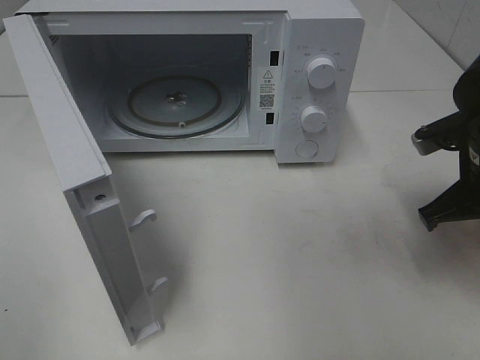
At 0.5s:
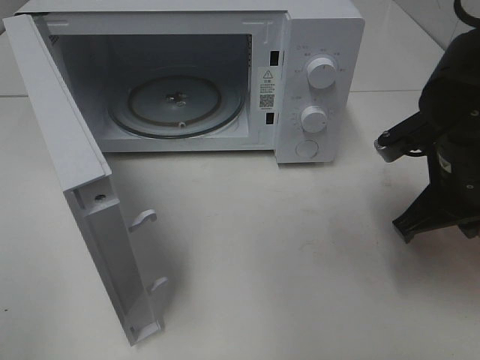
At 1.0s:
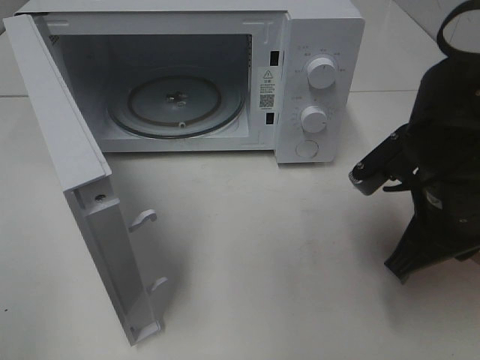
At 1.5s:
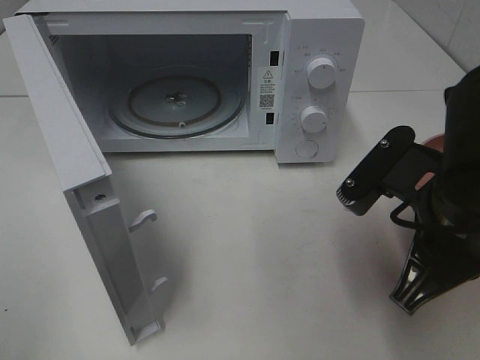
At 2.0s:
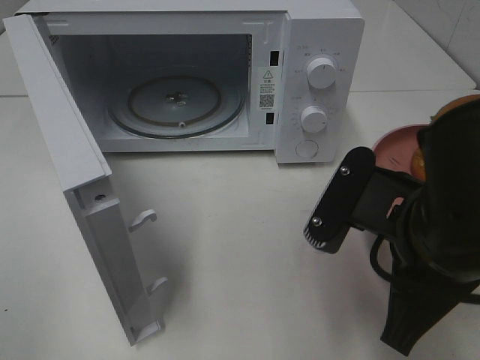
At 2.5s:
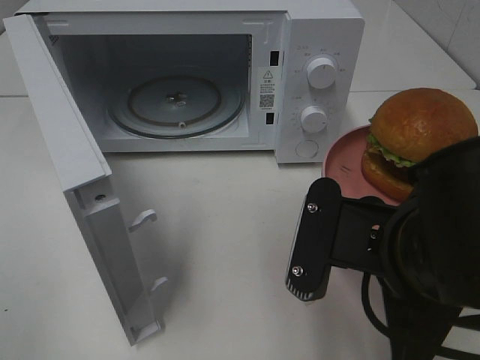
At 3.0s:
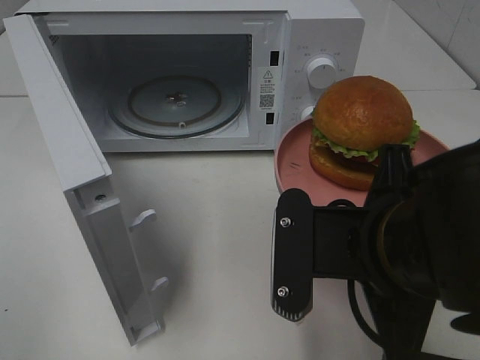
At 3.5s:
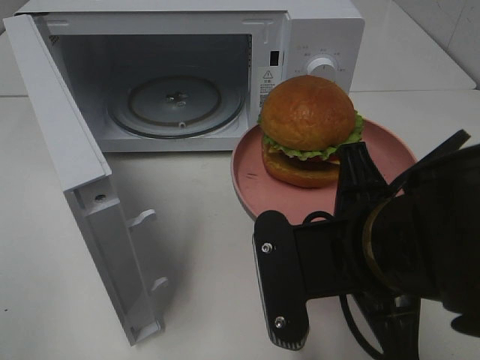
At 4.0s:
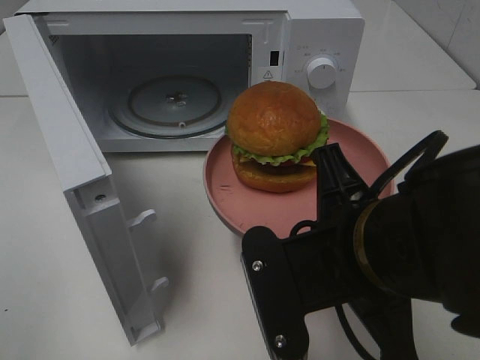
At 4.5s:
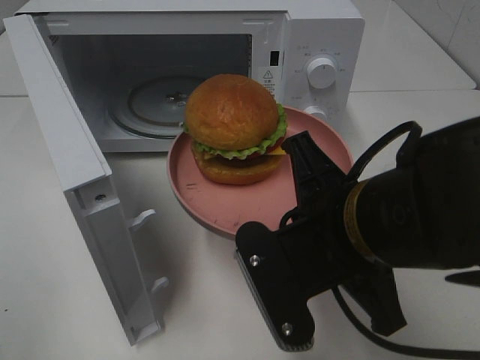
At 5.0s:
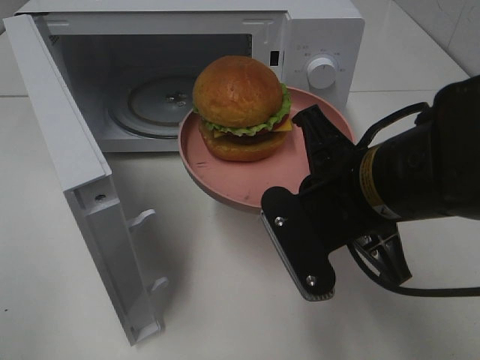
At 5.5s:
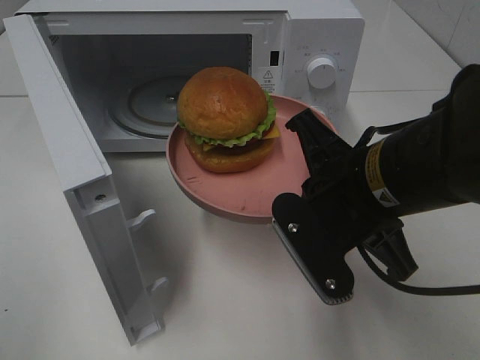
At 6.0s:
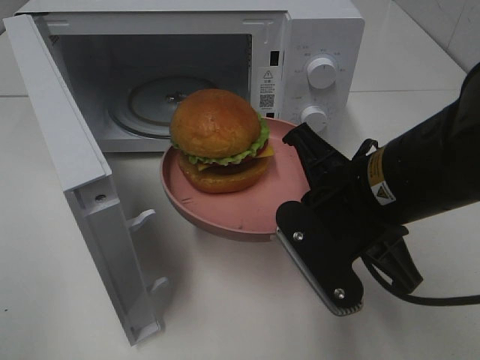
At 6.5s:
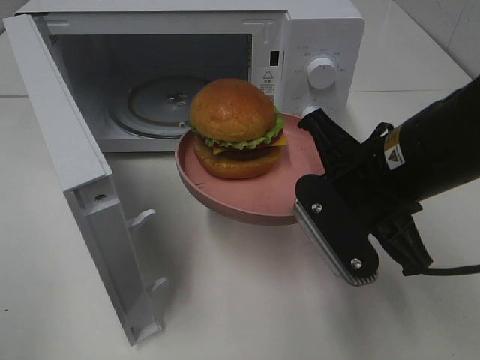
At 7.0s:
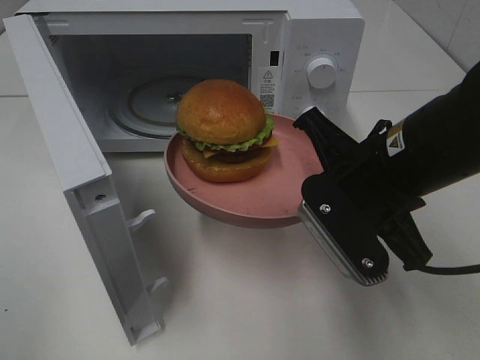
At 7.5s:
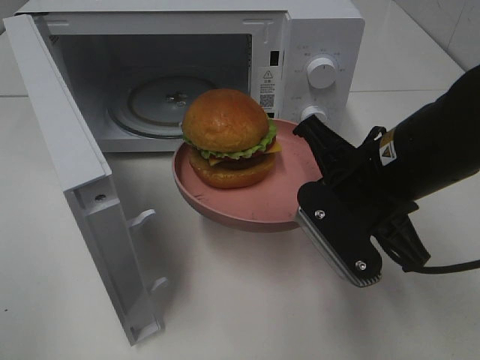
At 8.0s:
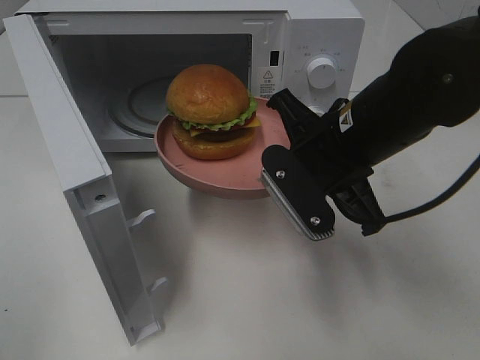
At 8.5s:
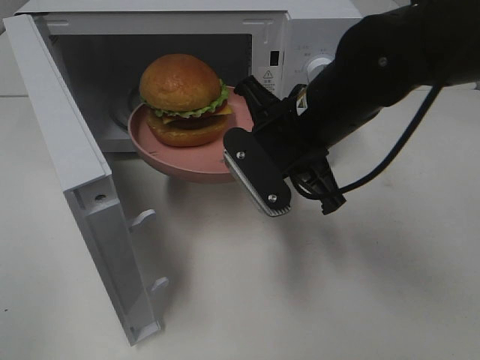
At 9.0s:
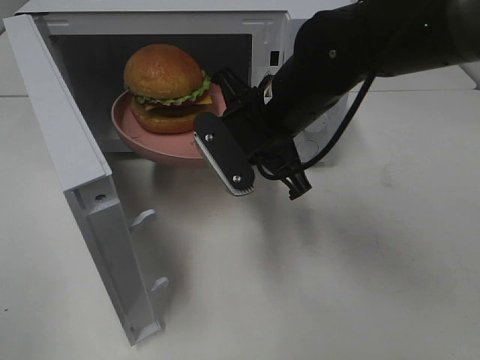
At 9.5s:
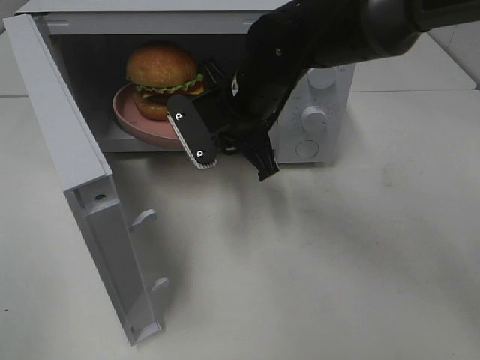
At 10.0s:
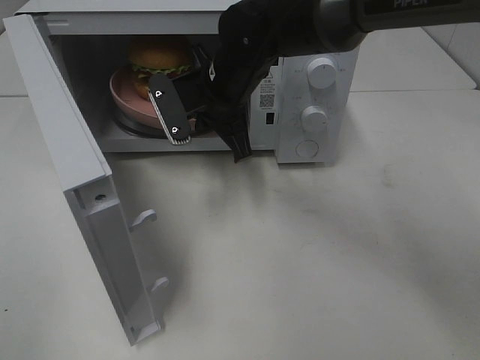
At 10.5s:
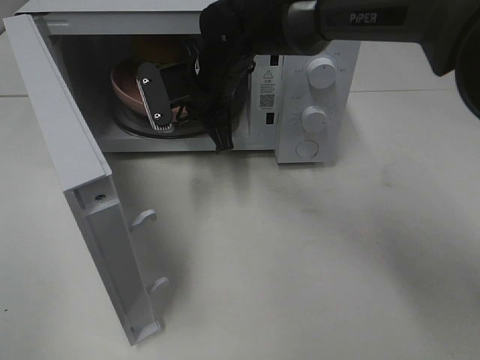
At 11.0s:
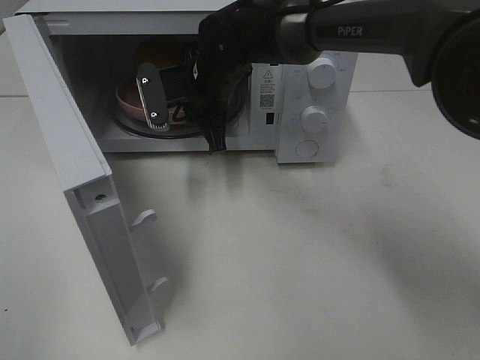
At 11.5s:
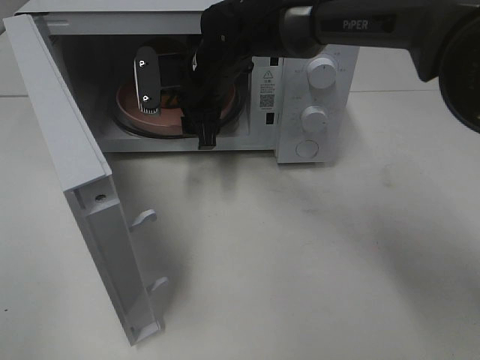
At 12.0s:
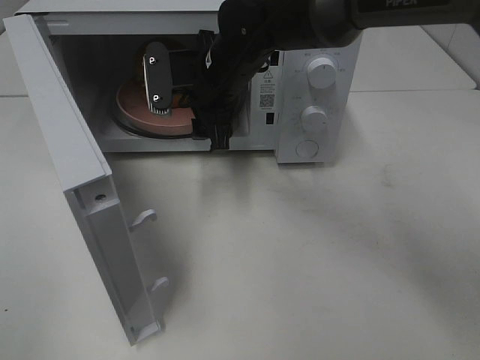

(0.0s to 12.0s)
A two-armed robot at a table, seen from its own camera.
Task of the whole recording: Heat the burger.
Step, 0.0s - 11.0s: Right hand: place the plate in the microwave.
0.0s - 2.0s: The right gripper is displaced backward and to the left by some 15 cm.
4.0s - 6.0s: The right gripper shifts roughly 5 cm forward.
6.0s - 8.0s: The right gripper travels forward by roughly 5 cm.
8.0s - 10.0s: The right gripper is displaced forward and to the left by about 15 cm.
10.0s - 12.0s: The right gripper opens its fingers.

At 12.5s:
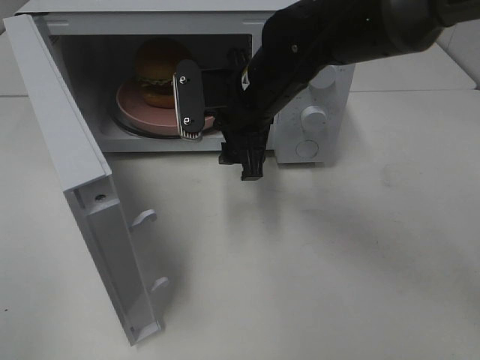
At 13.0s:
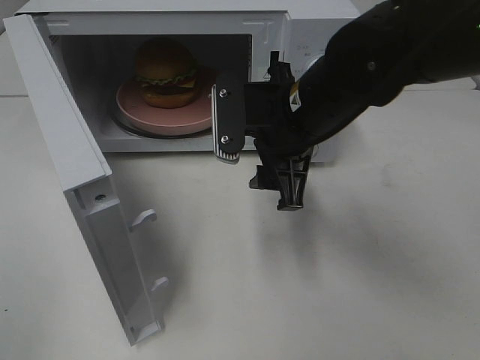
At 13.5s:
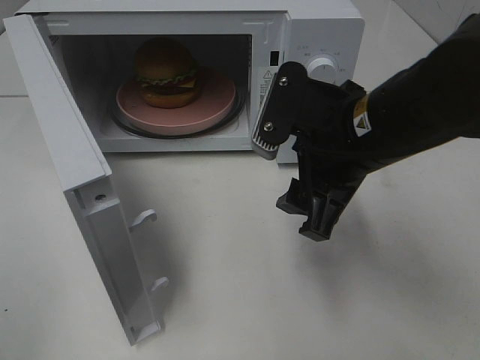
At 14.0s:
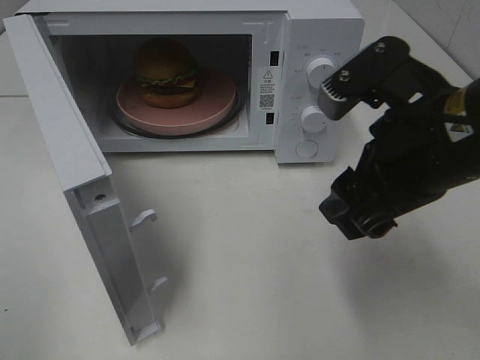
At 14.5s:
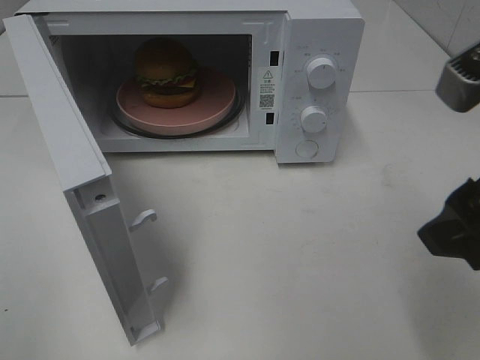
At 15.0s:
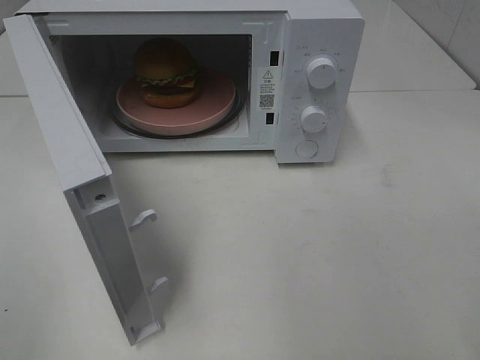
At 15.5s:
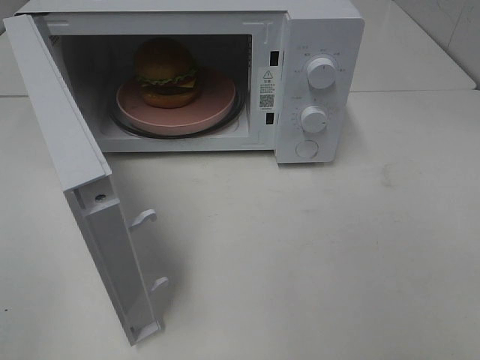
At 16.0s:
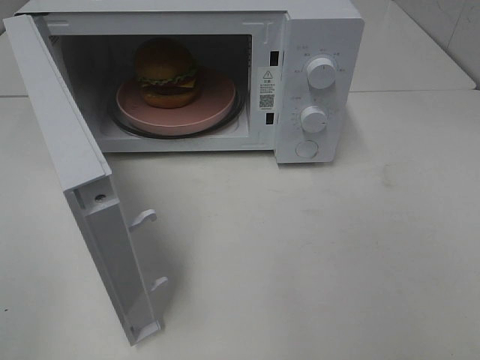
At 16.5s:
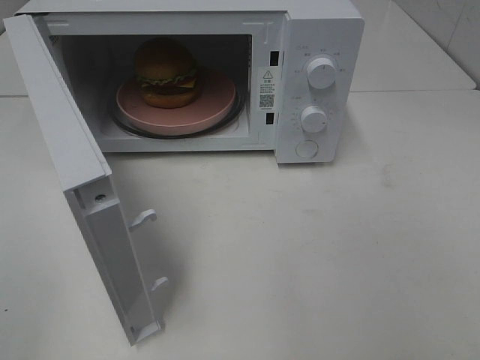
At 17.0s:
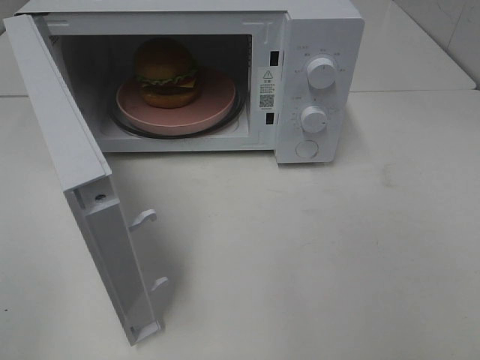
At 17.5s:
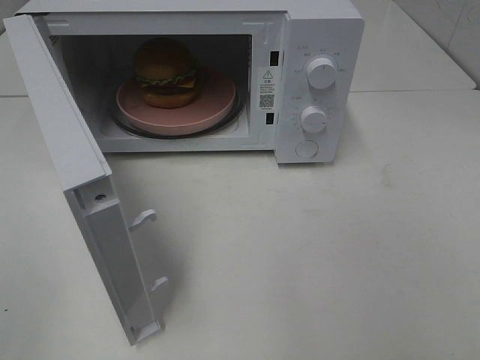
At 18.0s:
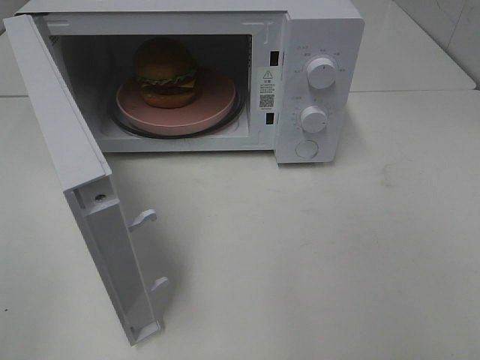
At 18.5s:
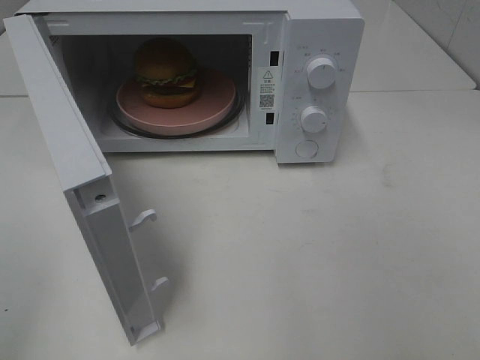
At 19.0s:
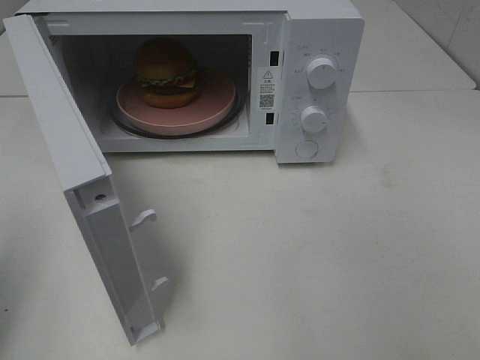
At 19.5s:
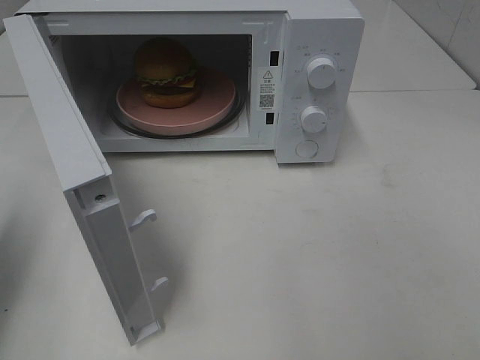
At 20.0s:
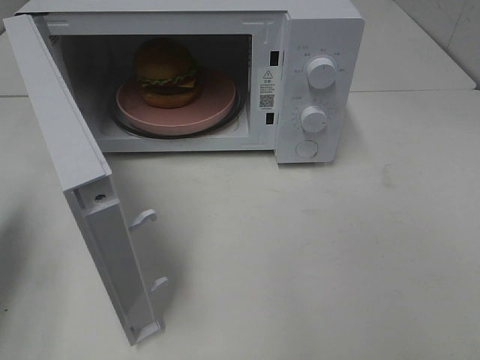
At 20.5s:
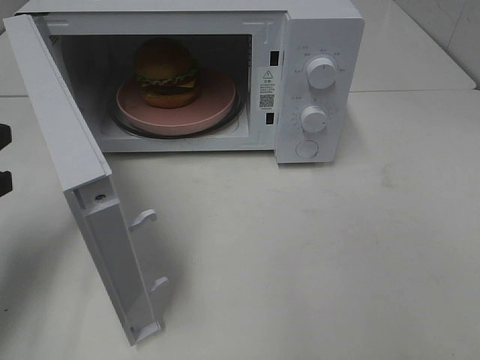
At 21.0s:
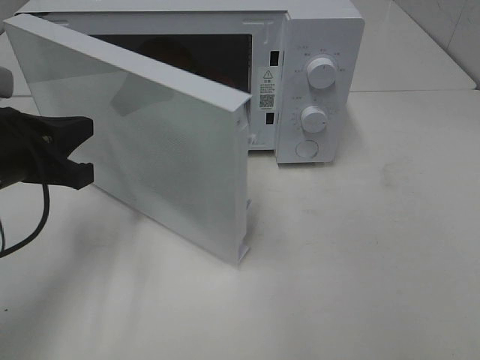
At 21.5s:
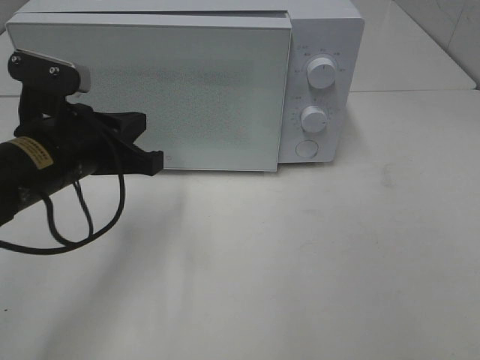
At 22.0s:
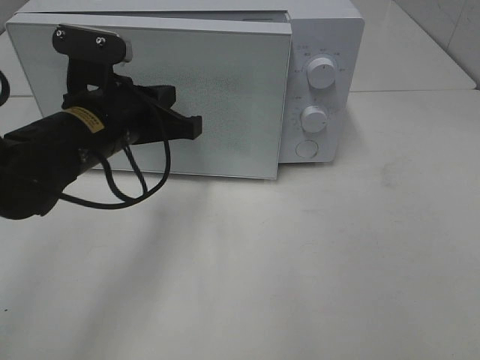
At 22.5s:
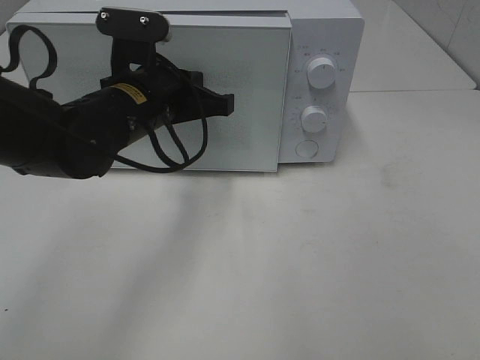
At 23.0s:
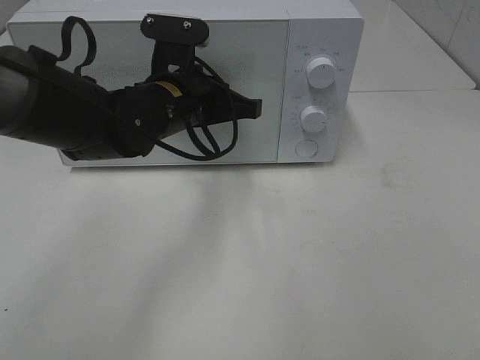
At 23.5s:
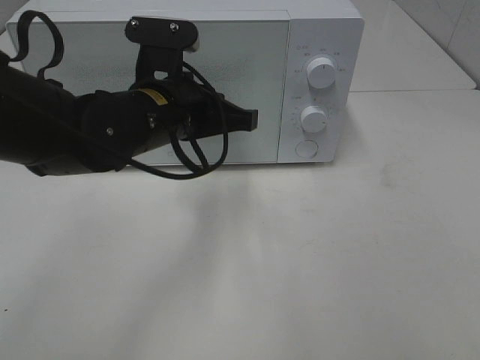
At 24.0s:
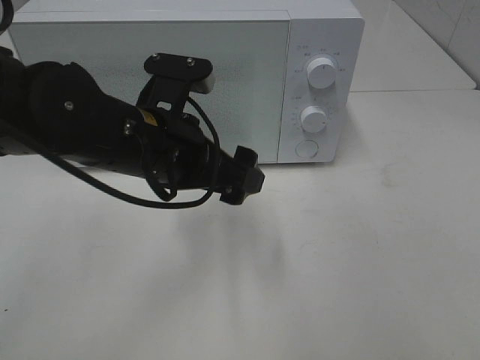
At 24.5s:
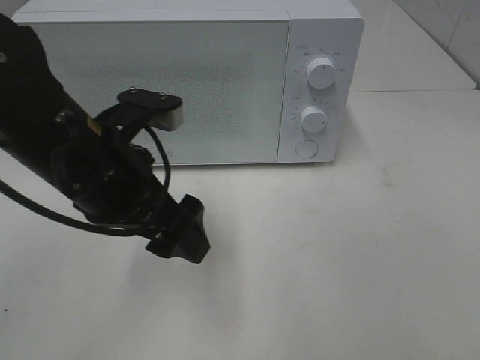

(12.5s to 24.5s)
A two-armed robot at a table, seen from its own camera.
Task of the whole recording: Heat the burger.
Step, 12.5s - 23.5s: Left hand: close the microwave door.
12.5s - 14.5s: The right gripper goes about 30 cm backward, to the right and upward.
14.5s - 16.5s: The right gripper heads backward and to the right, covering roughly 15 cm.
18.5s - 20.5s: The left gripper heads forward and downward, covering some 25 cm, and closes.
20.5s - 22.5s: The left gripper travels to the right and forward by roughly 20 cm.
22.5s - 24.5s: The left gripper shifts roughly 10 cm backward, and opens.

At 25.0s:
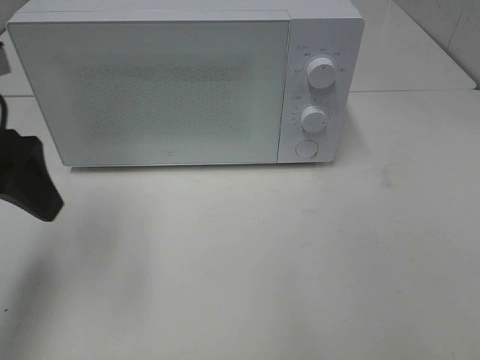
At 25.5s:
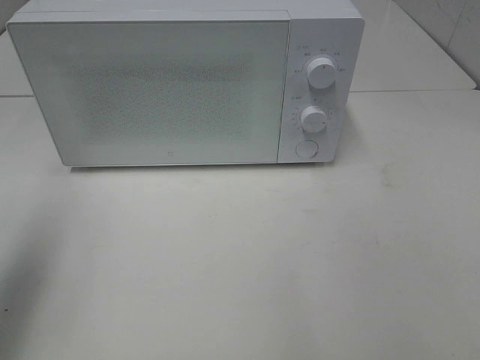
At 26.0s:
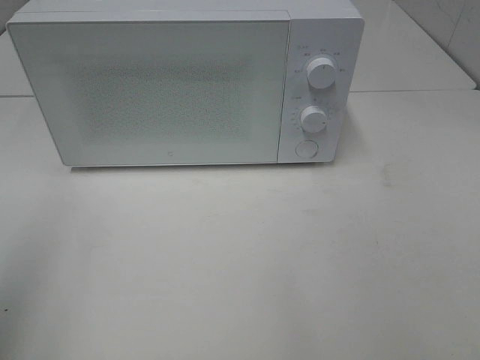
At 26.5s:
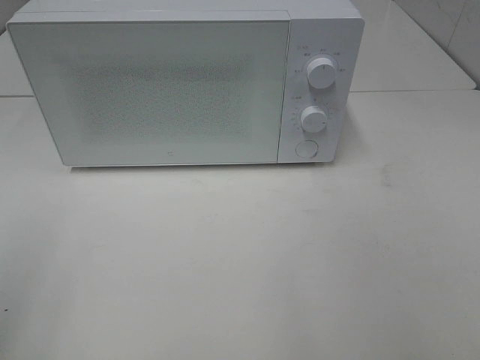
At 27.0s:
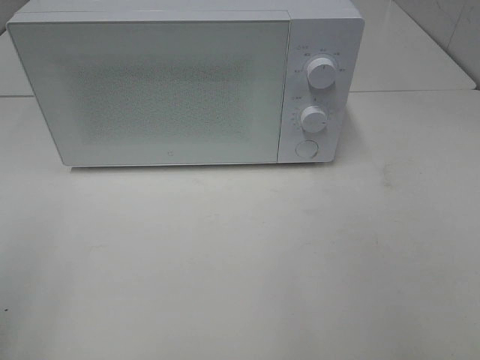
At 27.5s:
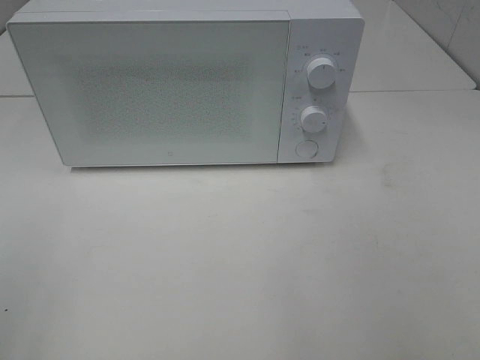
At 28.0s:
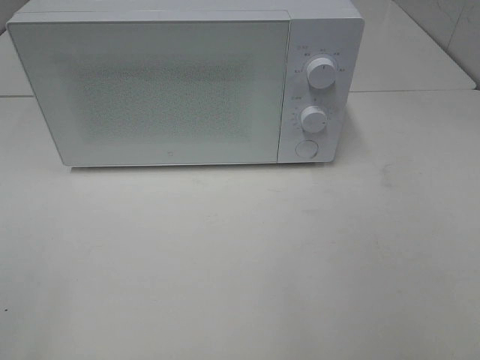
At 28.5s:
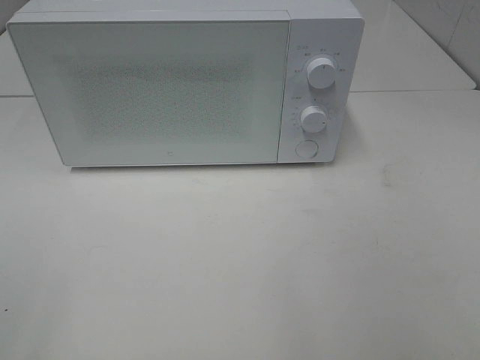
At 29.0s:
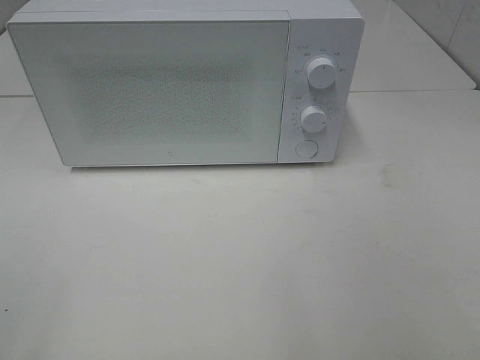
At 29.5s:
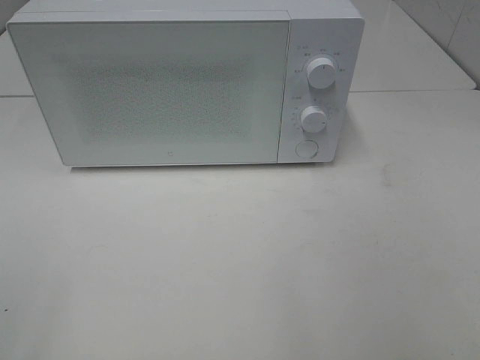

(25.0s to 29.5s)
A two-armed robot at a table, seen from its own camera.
Task of the whole recording: Heat the burger.
25.0s - 27.0s: The left gripper shifts some 20 cm backward and to the left.
